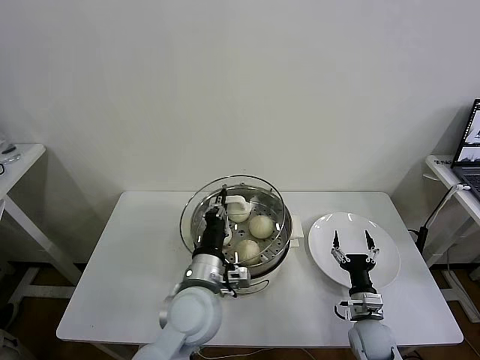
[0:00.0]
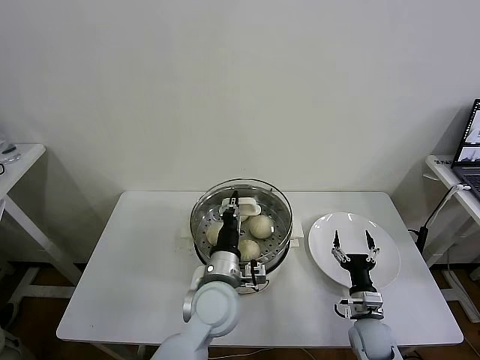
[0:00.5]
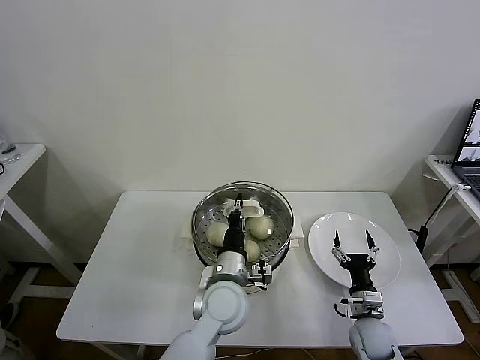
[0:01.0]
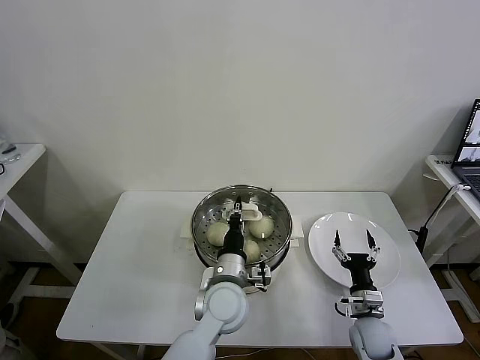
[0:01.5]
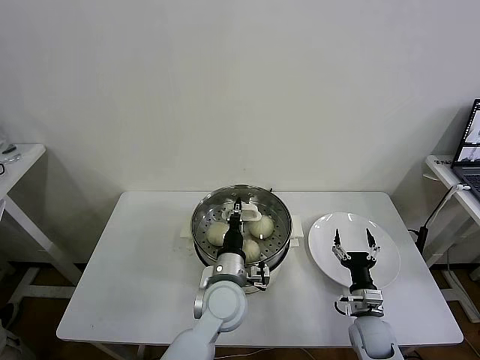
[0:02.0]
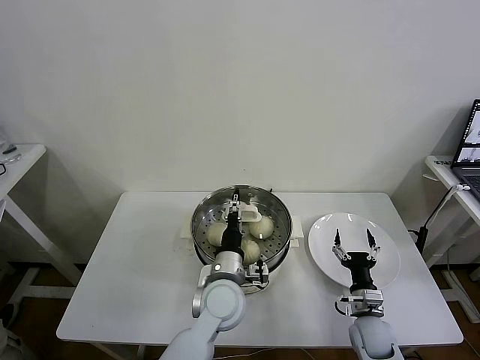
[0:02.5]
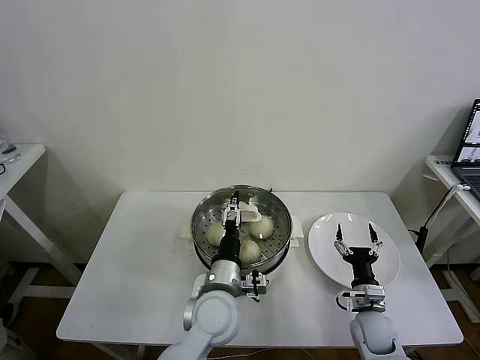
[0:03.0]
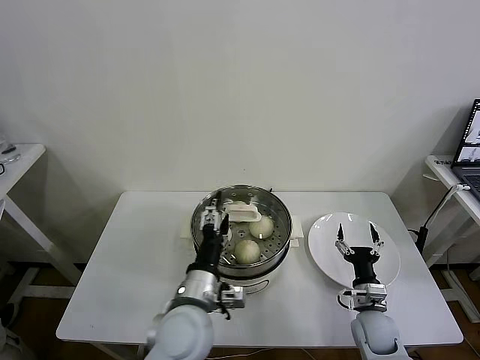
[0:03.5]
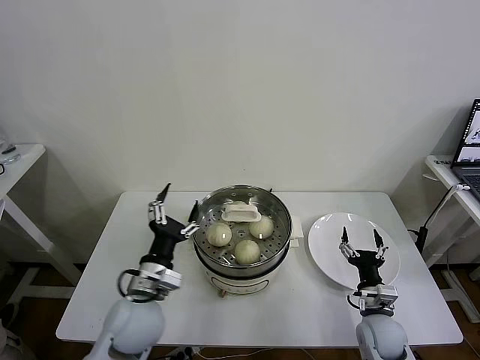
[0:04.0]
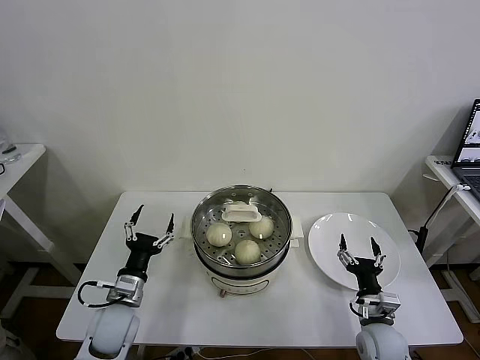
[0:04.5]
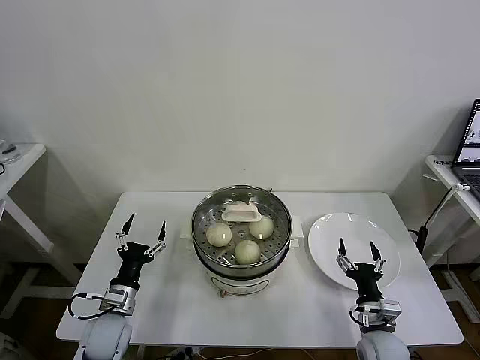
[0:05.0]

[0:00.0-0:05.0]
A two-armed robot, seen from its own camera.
Task of the whole recording: take steamed baozi put them in steamer then cover it.
Step, 0:00.0 to 0:03.0: Place the pot lid on the steamer with left gripper.
0:00.0 to 0:02.5: The left gripper shifts about 10 cm downward and to the right, and opens its fingers.
0:02.5 to 0:05.0: The left gripper is displaced to the left by some 25 cm, and opens up. The right gripper ends up approximately 5 cm from where it was.

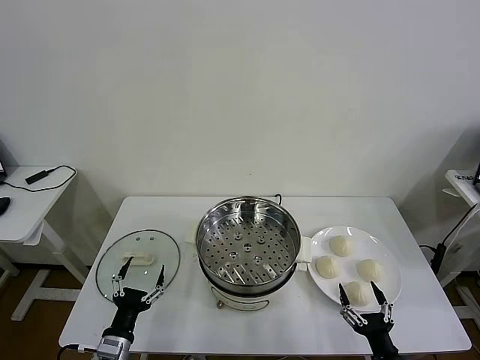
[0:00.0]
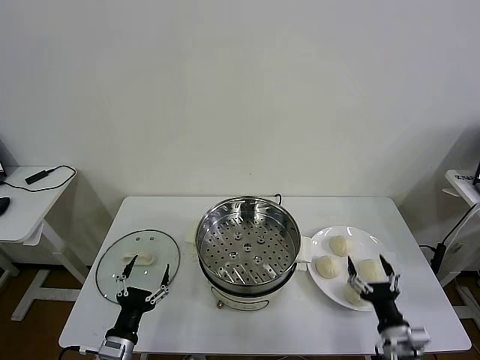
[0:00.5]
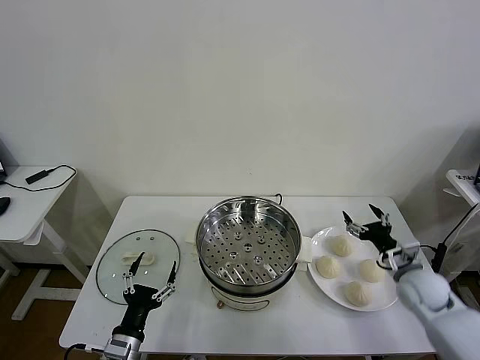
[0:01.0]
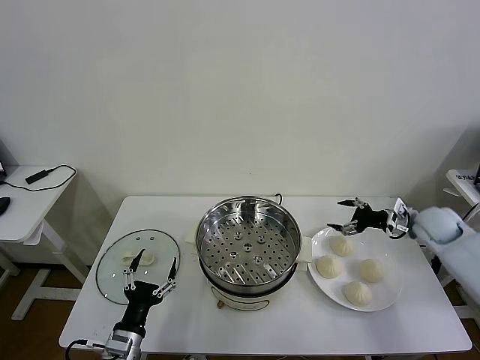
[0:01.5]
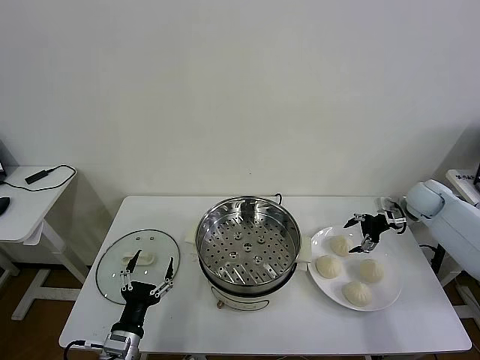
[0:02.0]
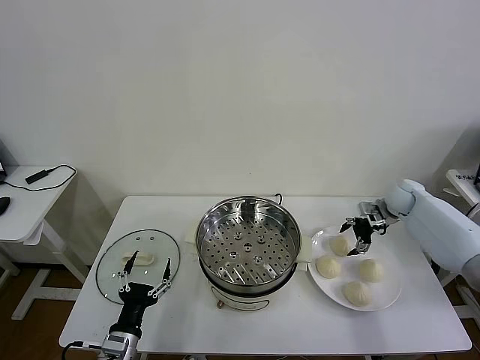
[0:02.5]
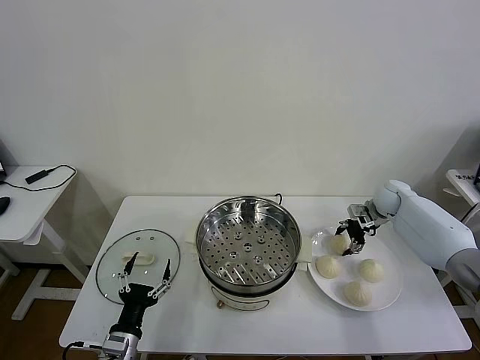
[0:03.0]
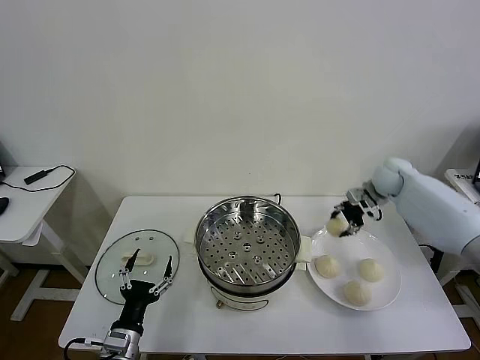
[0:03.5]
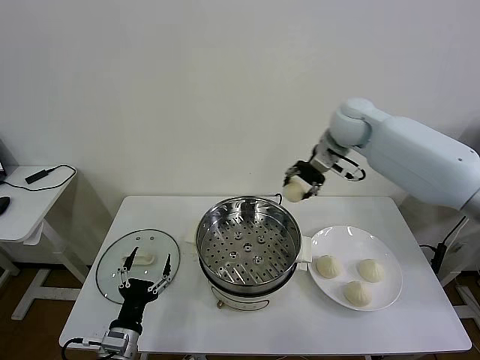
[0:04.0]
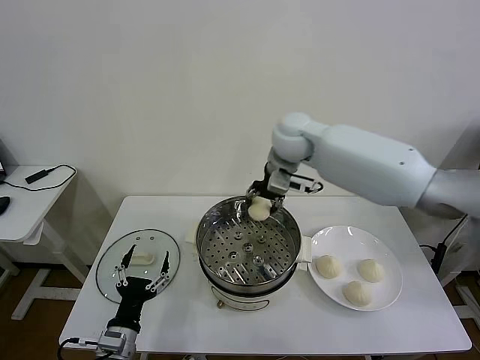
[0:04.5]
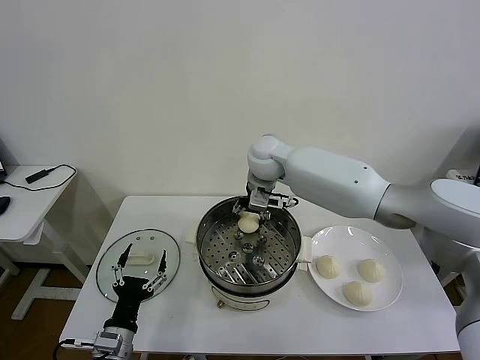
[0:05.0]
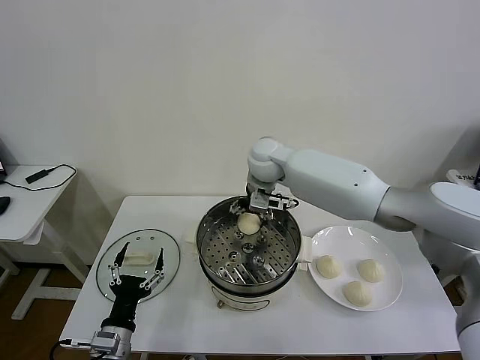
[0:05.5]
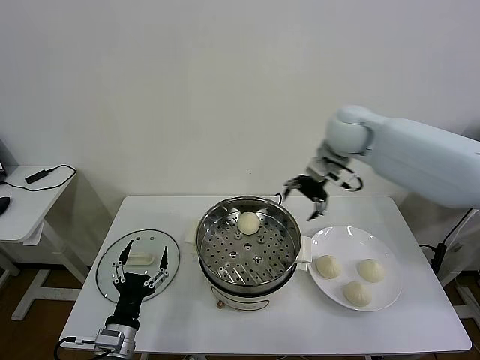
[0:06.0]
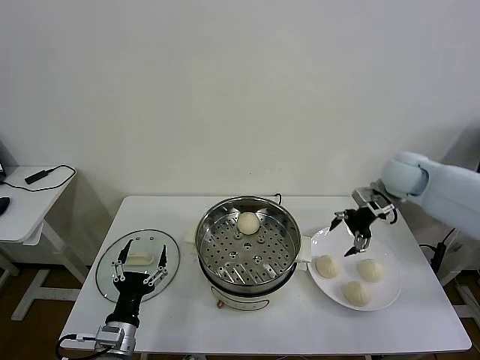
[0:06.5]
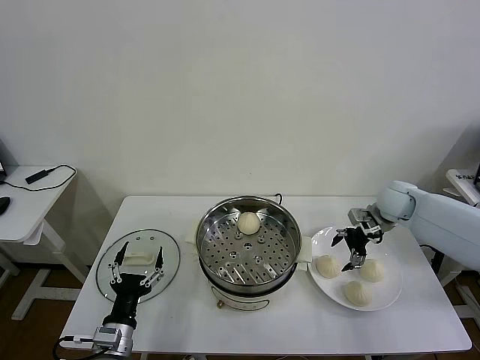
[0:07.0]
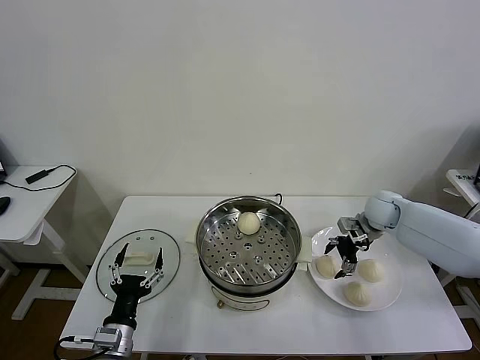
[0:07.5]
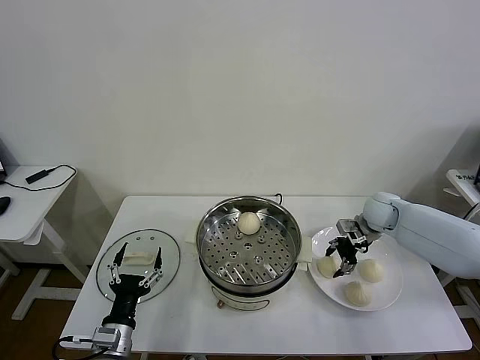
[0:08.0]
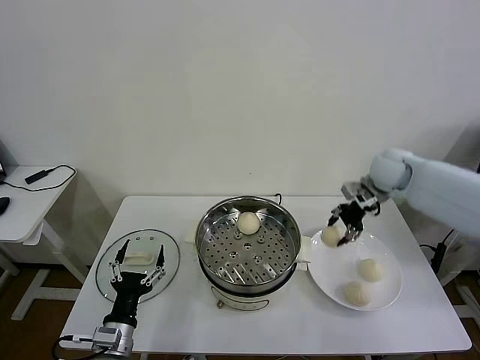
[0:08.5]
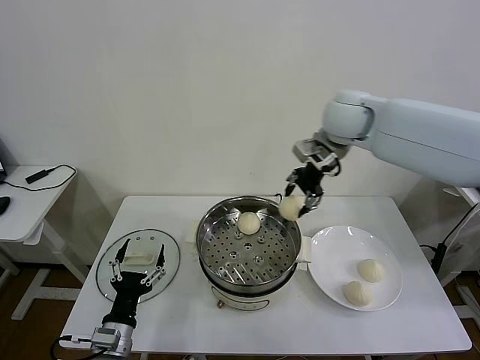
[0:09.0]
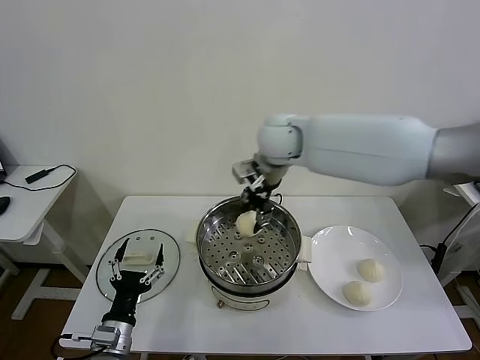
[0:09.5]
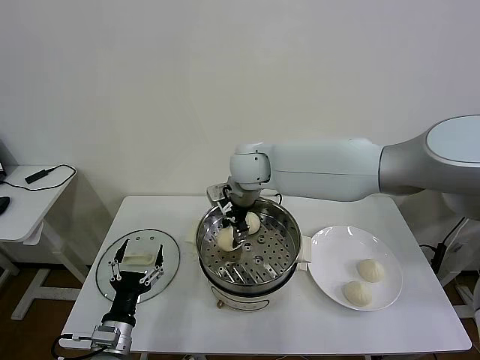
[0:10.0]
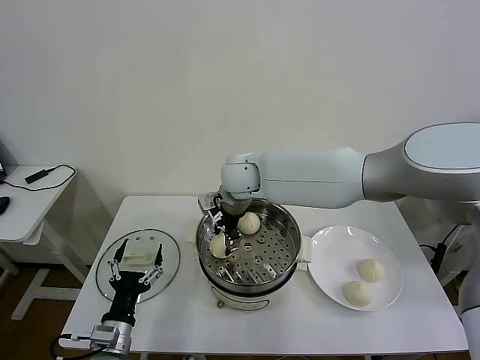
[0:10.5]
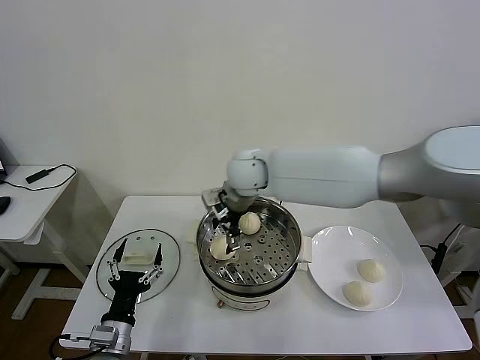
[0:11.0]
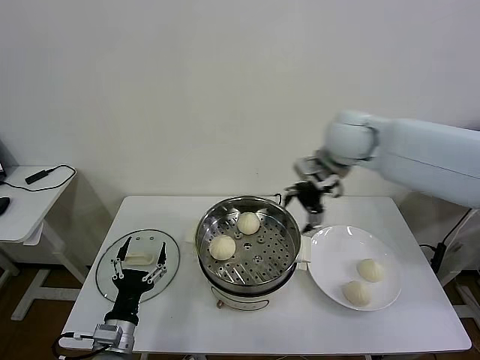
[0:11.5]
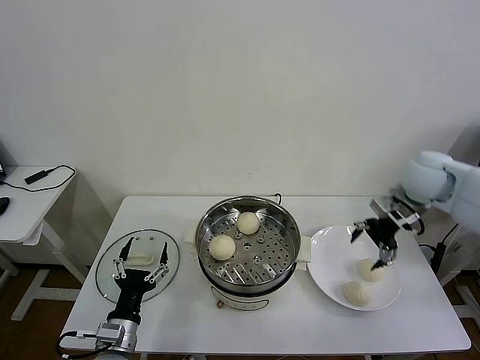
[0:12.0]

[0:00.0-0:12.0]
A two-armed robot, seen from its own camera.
Task of the whole recording: take steamed baozi put them in steamer then cover it.
Step, 0:00.0 to 0:03.0: Grasp the baozi in the plate with right gripper.
Step, 0:03.5 to 0:05.0: Place the baozi on the steamer with right gripper.
Step, 0:05.5 to 0:08.0: Grasp the baozi in the plate with right gripper.
Step, 0:08.5 to 0:10.5: Place the baozi on the steamer with right gripper.
0:02.0 to 0:04.0: The right gripper moves to the left and upward, some 35 cm, and closes.
0:04.0 to 0:06.0: The right gripper reaches about 15 cm to the left, then returns, and opens.
0:06.0 to 0:08.0: The right gripper moves downward and to the right, roughly 25 cm, and closes up.
0:08.0 to 0:10.0: The right gripper moves to the left and upward, some 40 cm.
0:10.0 to 0:12.0: The right gripper moves to the right, some 35 cm, and opens up.

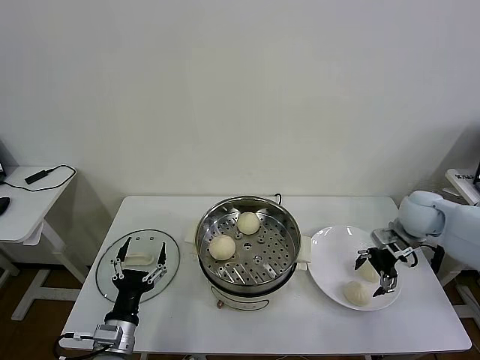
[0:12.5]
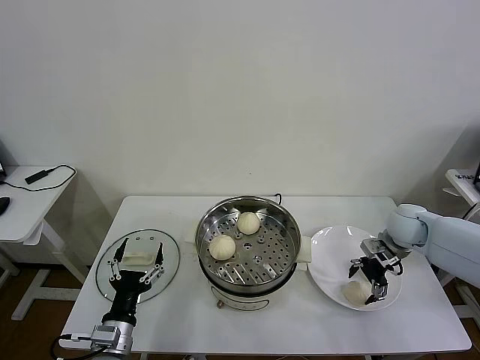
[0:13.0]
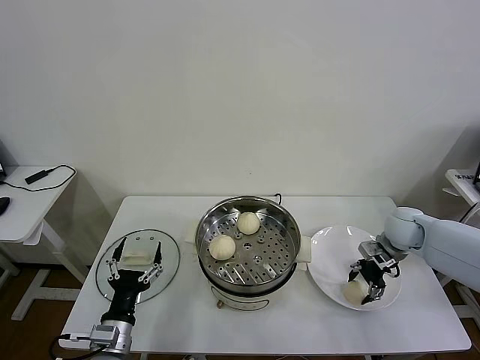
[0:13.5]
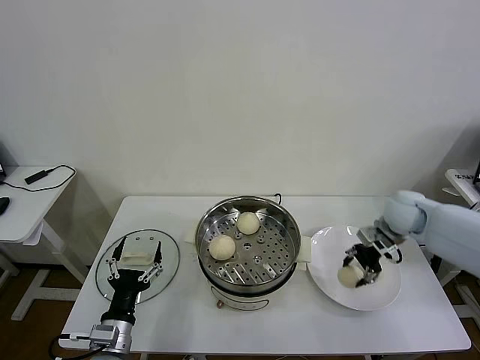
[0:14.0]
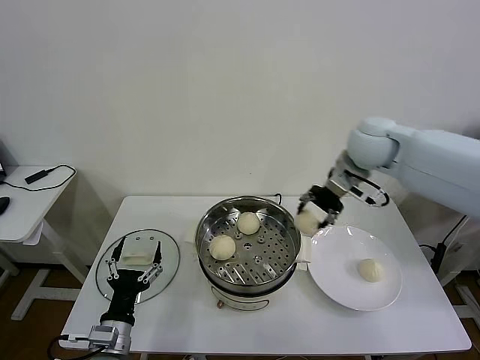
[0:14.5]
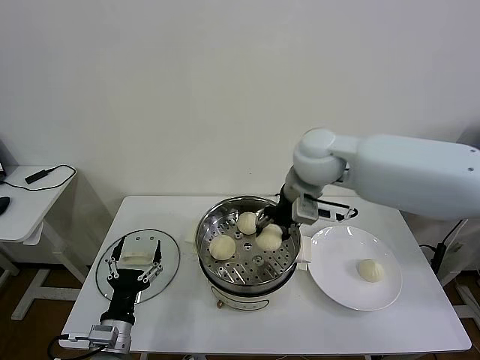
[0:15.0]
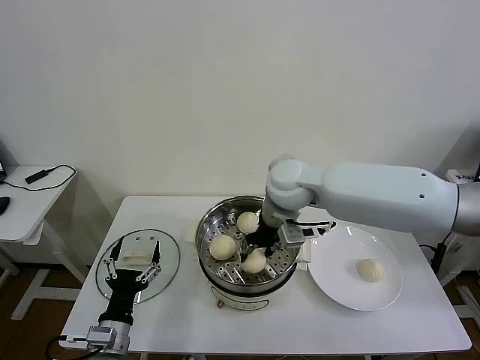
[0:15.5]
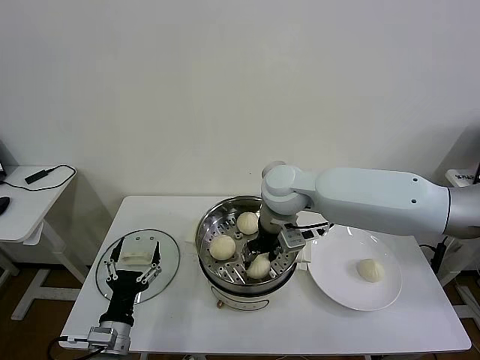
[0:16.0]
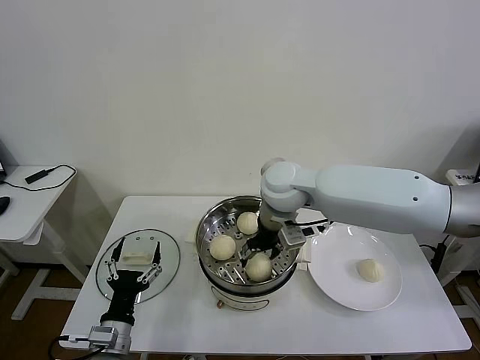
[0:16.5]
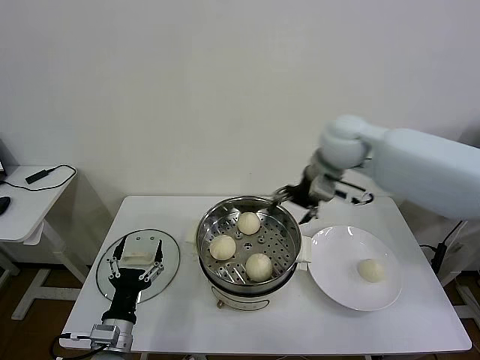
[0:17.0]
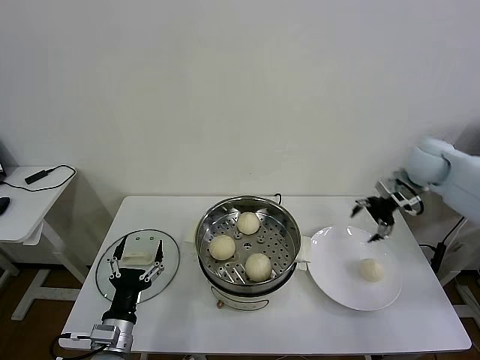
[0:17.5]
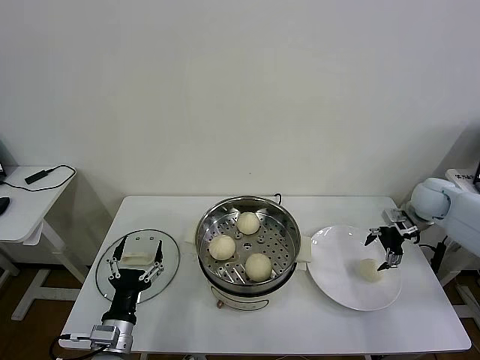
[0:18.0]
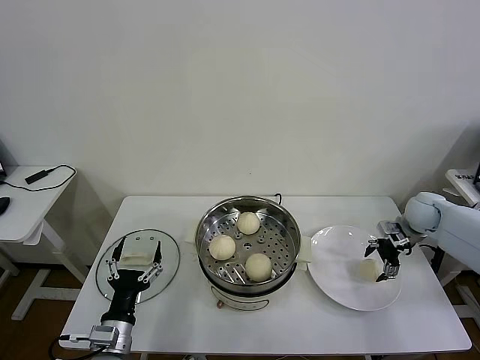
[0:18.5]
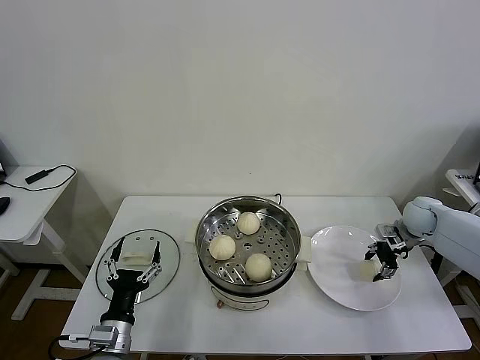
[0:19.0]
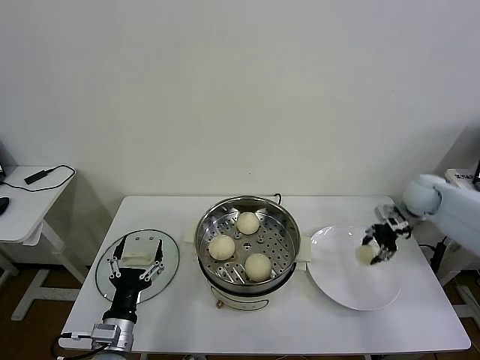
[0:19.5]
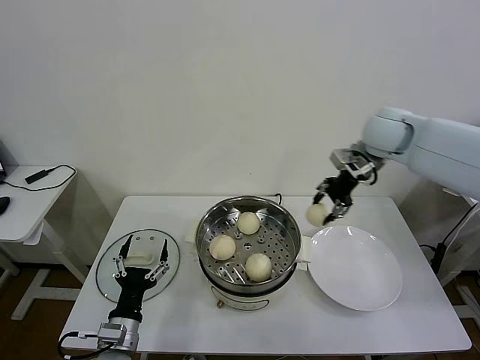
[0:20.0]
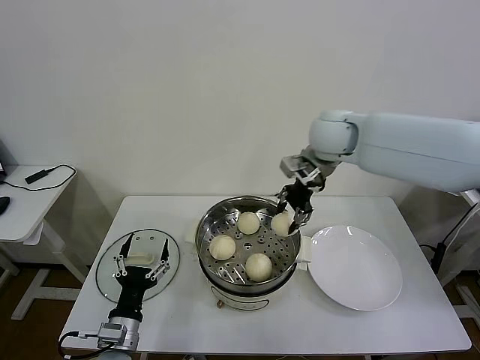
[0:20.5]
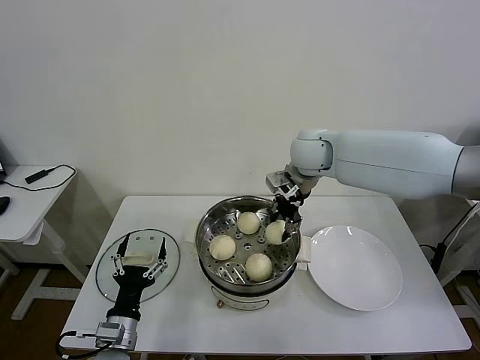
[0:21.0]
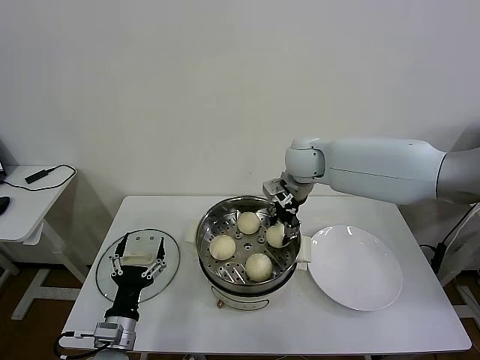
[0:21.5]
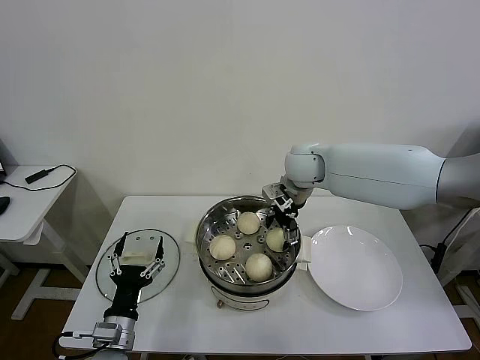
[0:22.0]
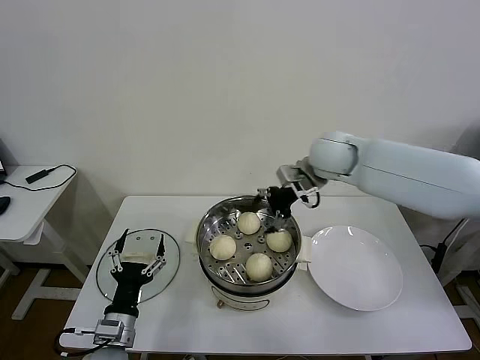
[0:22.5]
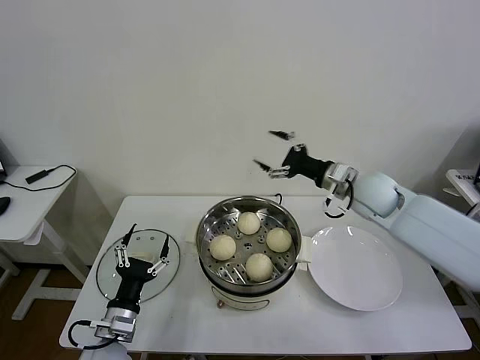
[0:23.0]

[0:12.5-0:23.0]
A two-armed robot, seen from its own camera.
Task of the whole recording: take steamed baozi put them in steamer then cover it.
Step, 0:14.0 to 0:16.0: Place the baozi on the steamer with right gripper.
Step, 0:16.5 to 0:19.0: Grasp the baozi in the plate with right gripper.
Step, 0:20.0 to 0:21.5: Place the baozi on the steamer with right gripper.
0:12.5 to 0:14.5: The right gripper moves upward and to the left, roughly 25 cm, and closes.
0:14.5 to 0:16.5: The right gripper heads to the left, covering approximately 15 cm, and opens.
0:16.5 to 0:19.0: The right gripper heads to the right and downward, covering some 40 cm, and closes its fingers.
0:19.0 to 0:21.0: The right gripper goes roughly 35 cm to the left and upward.
0:21.0 to 0:23.0: The right gripper shifts some 15 cm to the right, downward and backward, and opens.
